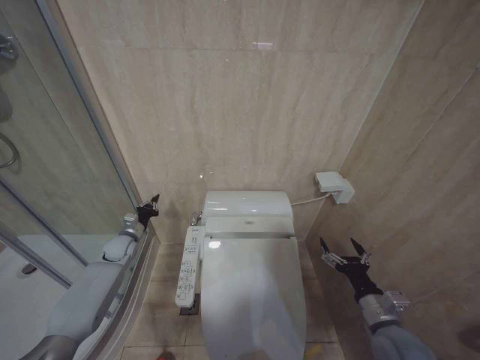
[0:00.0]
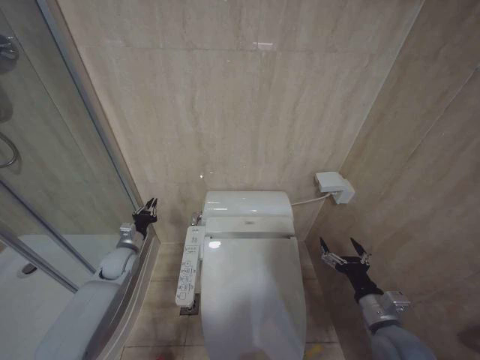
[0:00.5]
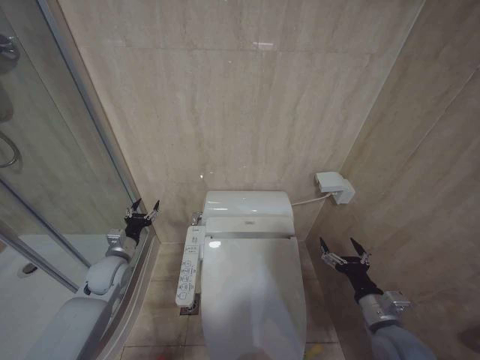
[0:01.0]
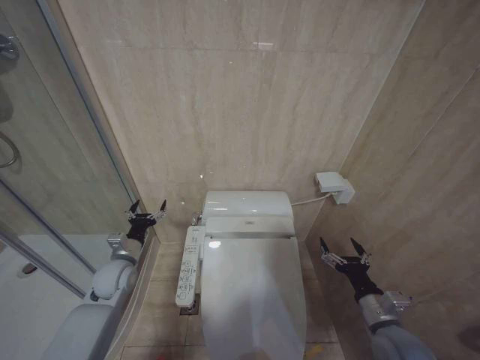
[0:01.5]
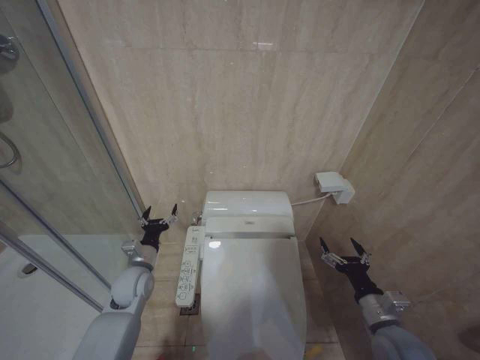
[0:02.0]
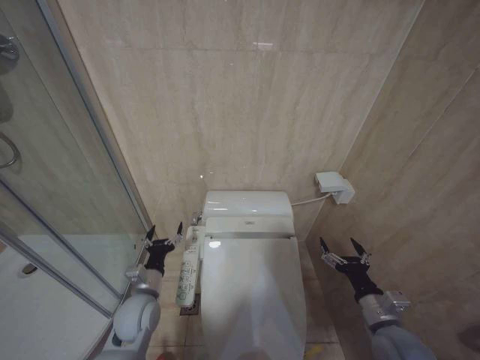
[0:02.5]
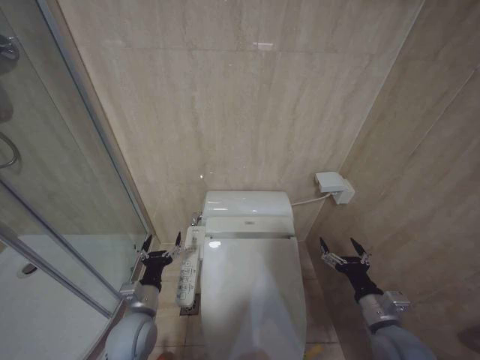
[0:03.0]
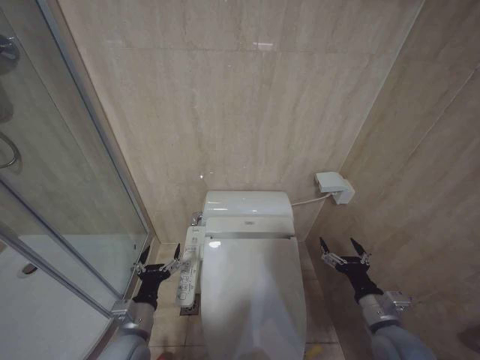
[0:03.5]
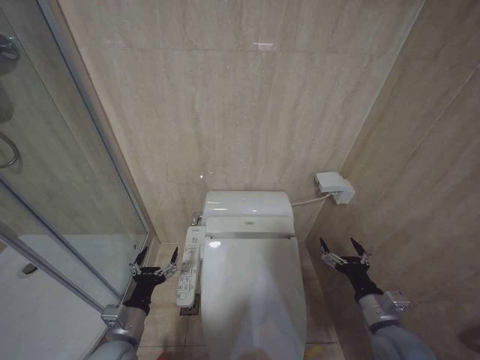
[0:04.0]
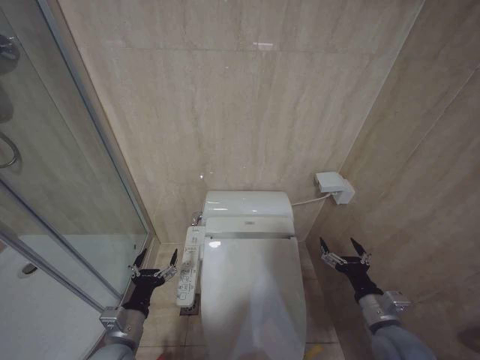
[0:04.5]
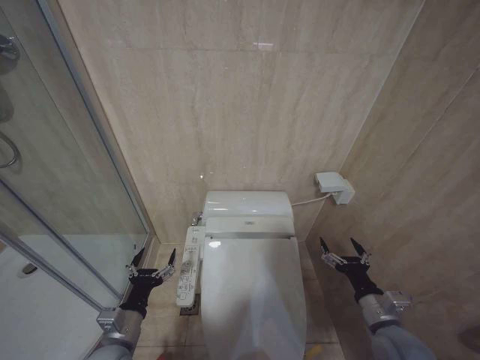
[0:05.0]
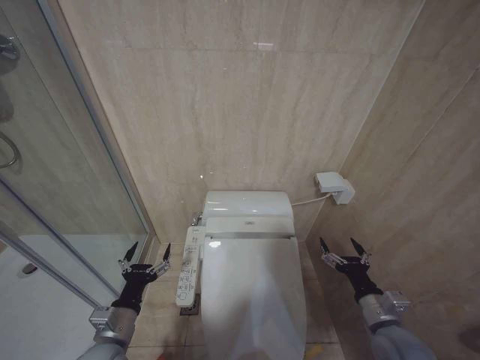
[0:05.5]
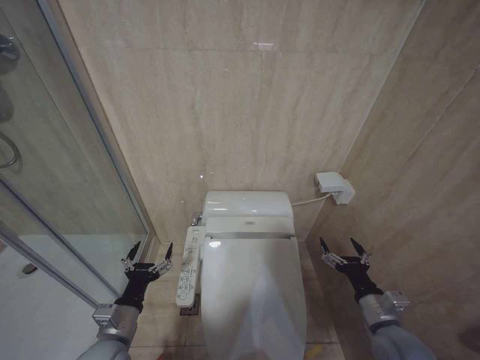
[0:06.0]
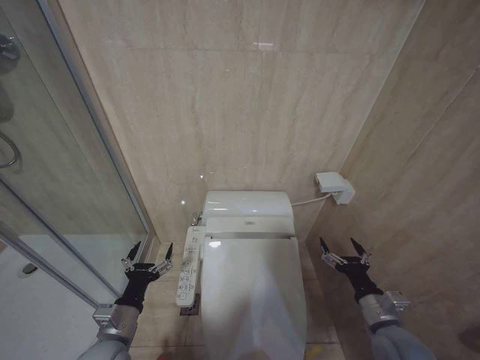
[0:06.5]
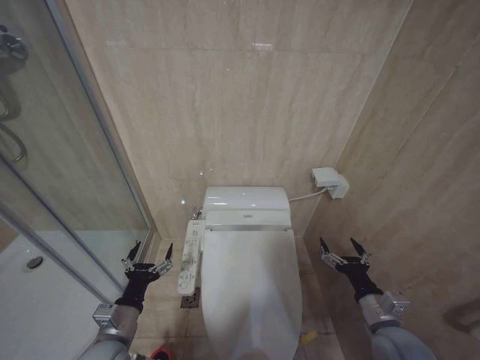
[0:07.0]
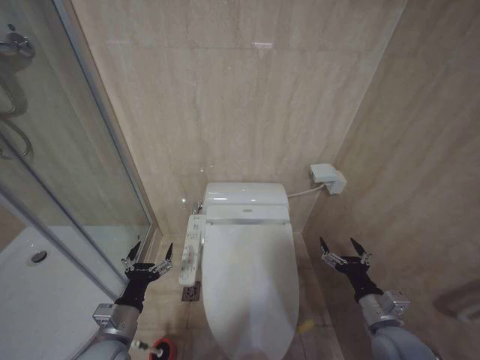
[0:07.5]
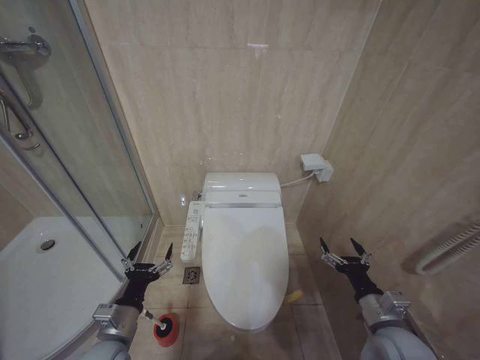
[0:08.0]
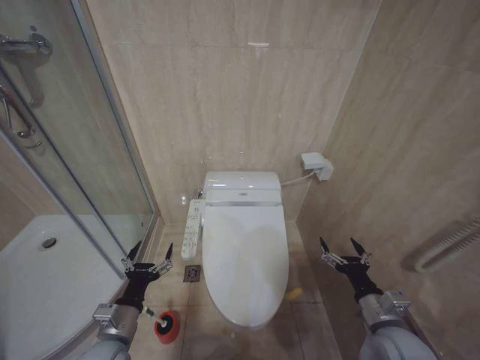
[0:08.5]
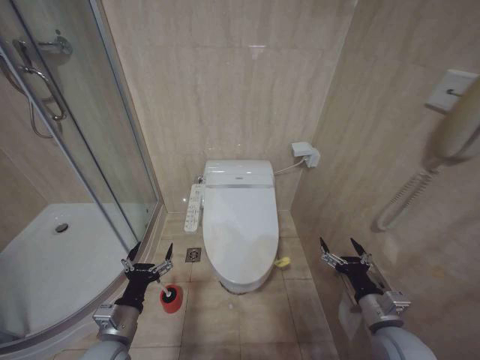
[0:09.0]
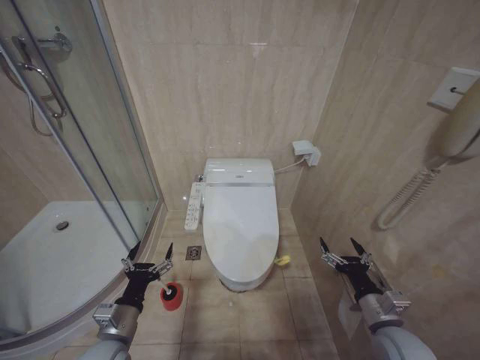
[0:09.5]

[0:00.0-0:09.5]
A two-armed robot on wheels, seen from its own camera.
Task of the whole recording: Open the toilet lid, clean the toilet bowl with a toilet brush, close the toilet lid, and flush.
0:00.0 to 0:02.0: The left gripper shifts some 15 cm backward and to the right, and opens up.
0:02.0 to 0:04.0: The left gripper shifts some 15 cm backward.
0:04.0 to 0:05.5: The grippers stay close to where they were, moving slightly.
0:05.5 to 0:09.5: The two grippers keep their place.

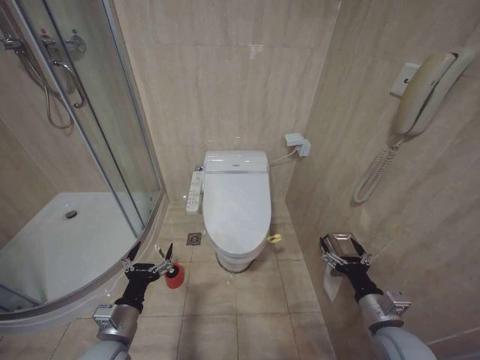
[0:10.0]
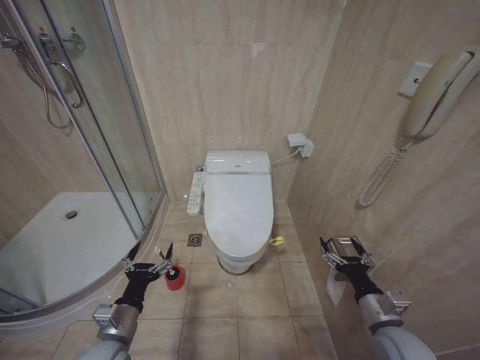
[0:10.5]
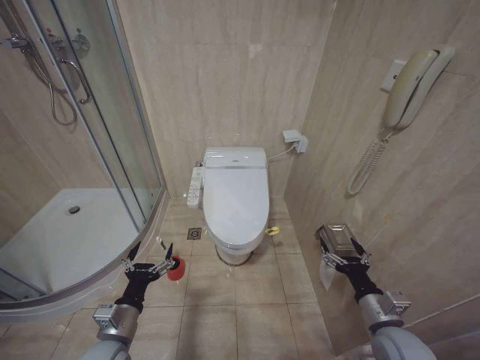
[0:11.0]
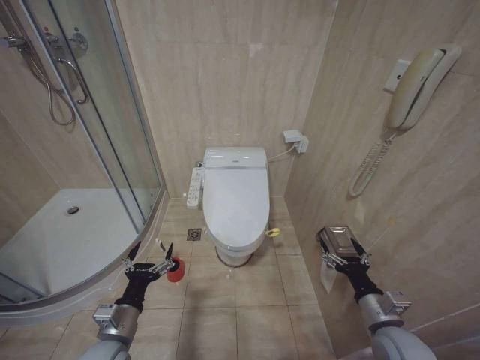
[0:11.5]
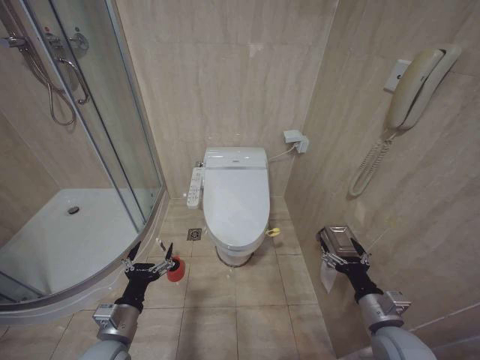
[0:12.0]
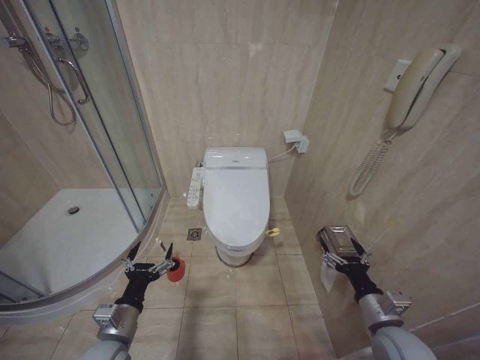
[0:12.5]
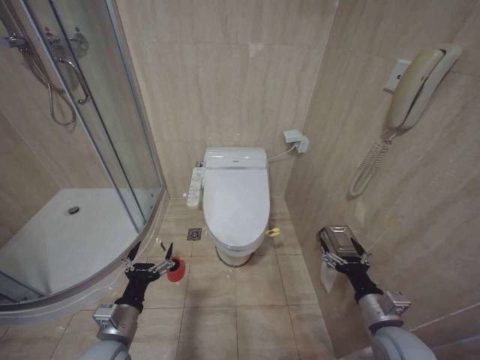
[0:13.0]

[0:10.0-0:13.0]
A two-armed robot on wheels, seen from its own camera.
Task of the whole recording: Open the toilet lid, clean the toilet bowl with a toilet brush, close the toilet lid, and flush.
0:10.0 to 0:13.0: Both grippers stay put.

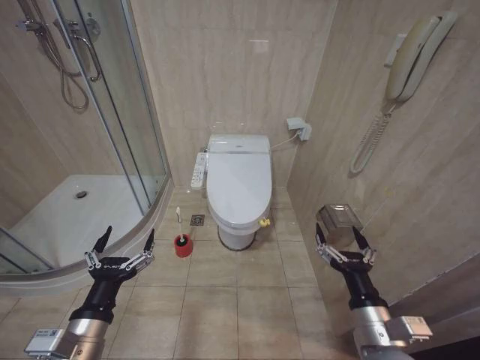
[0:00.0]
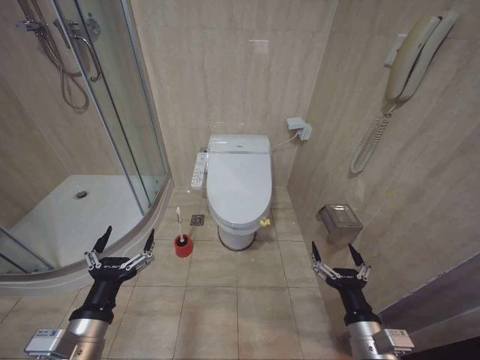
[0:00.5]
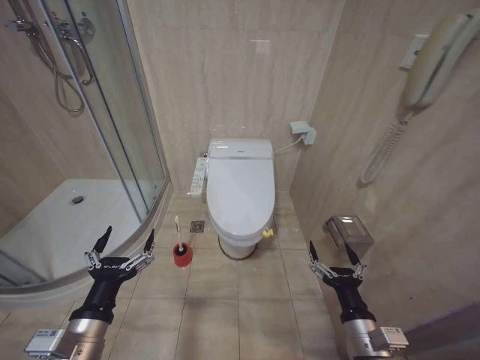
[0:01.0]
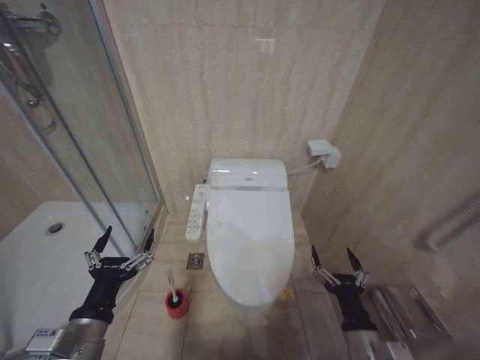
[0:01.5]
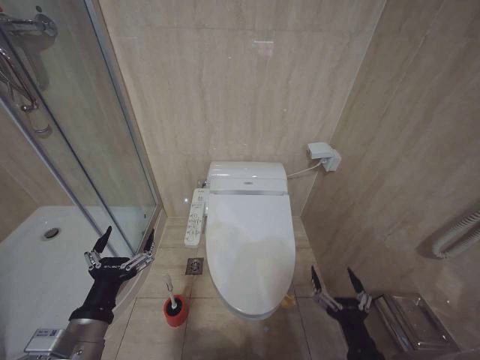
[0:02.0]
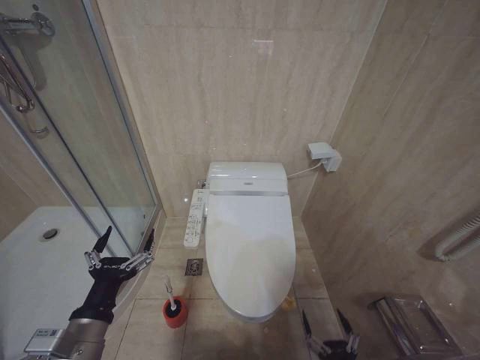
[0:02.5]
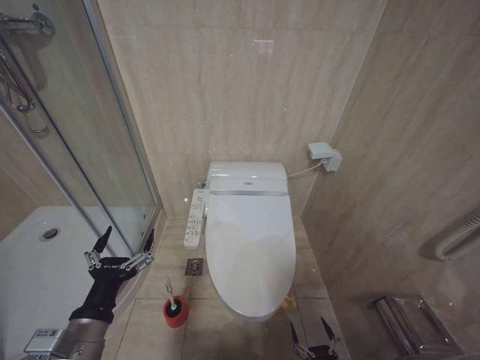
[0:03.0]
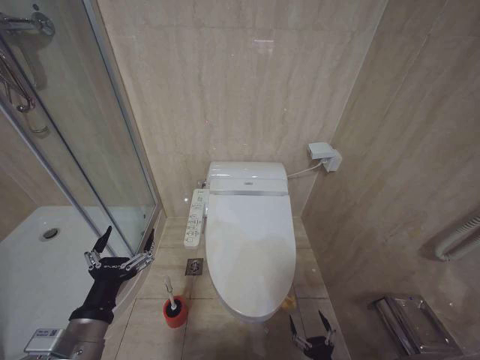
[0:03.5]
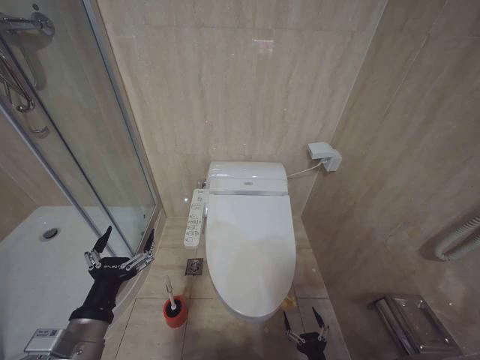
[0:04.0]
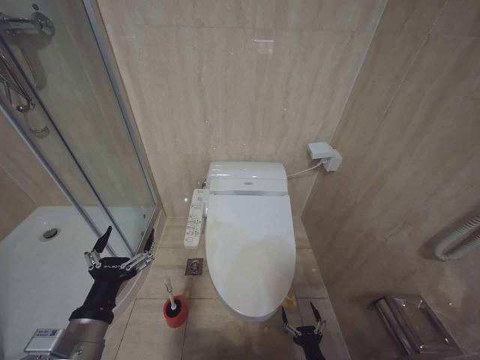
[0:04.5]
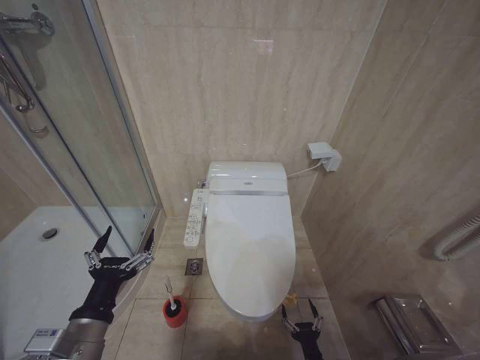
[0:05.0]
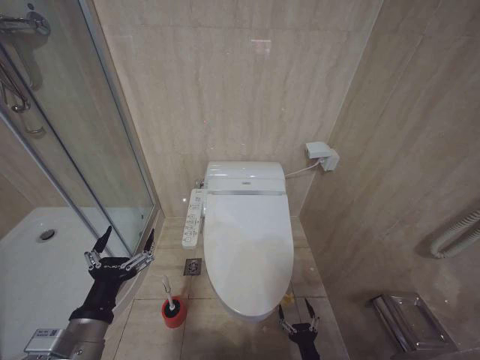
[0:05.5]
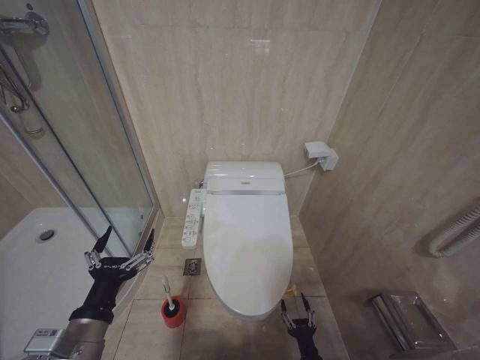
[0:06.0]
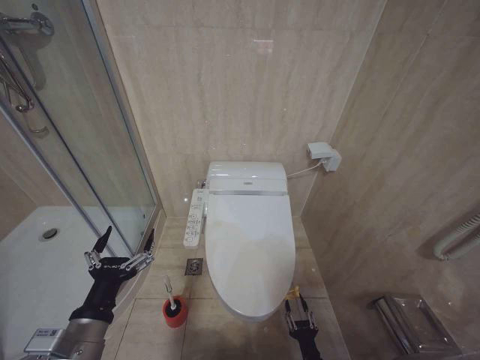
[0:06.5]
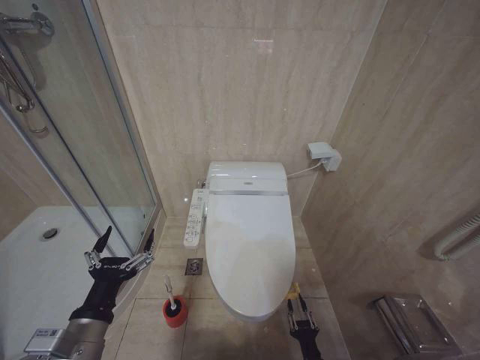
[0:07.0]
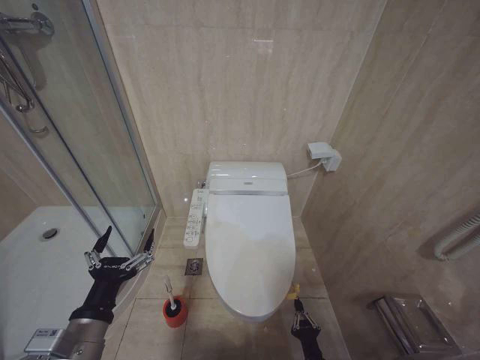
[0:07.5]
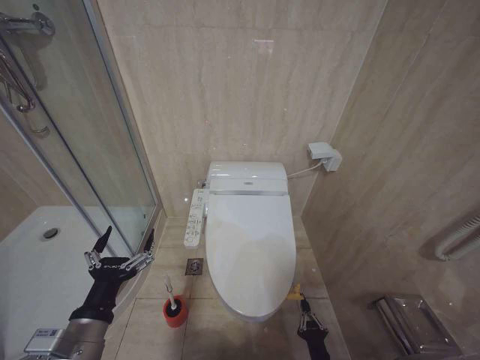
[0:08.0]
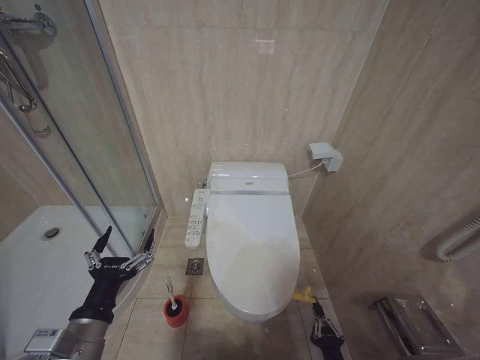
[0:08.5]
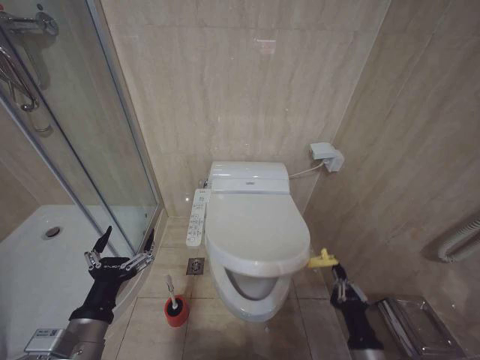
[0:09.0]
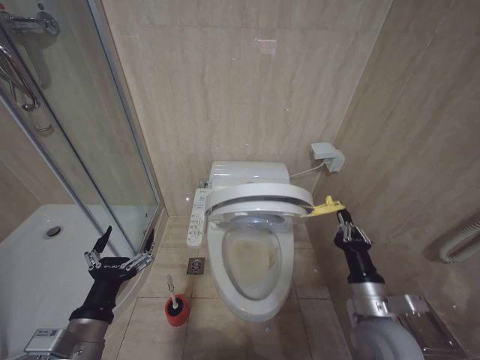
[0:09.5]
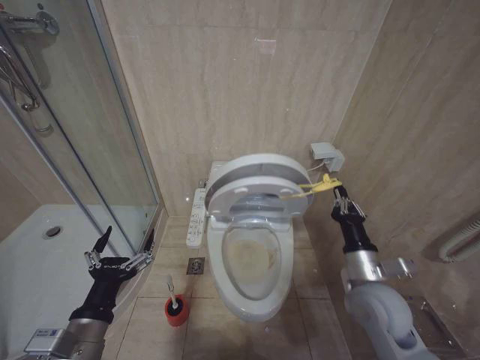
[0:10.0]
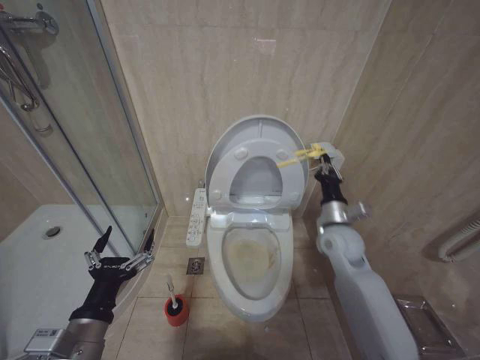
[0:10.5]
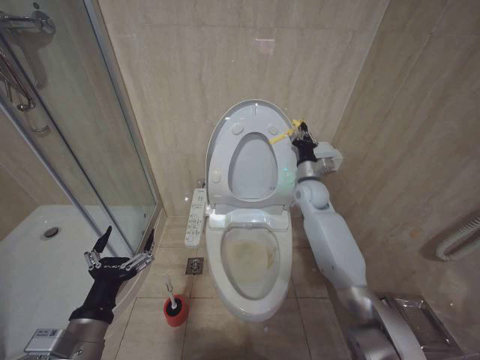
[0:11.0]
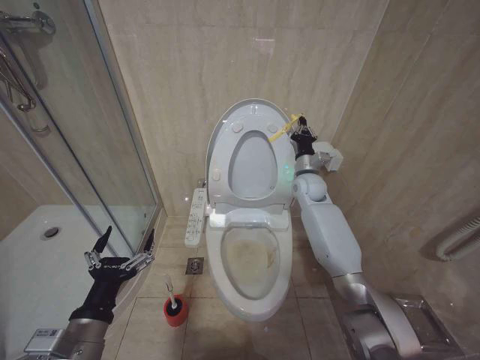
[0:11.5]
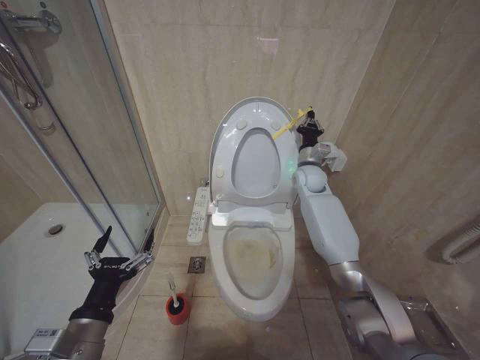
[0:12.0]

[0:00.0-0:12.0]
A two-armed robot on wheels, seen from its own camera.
Task of the whole recording: Open the toilet lid, clean the toilet bowl with a toilet brush, close the toilet lid, and flush.
0:02.0 to 0:04.0: The right gripper heads downward, covering approximately 20 cm.
0:04.0 to 0:06.0: The right gripper ends up about 5 cm from where it was.
0:06.0 to 0:08.0: The right gripper closes up.
0:08.0 to 0:10.0: The right gripper heads upward and forward, covering approximately 35 cm.
0:10.0 to 0:12.0: The right gripper shifts approximately 30 cm forward.

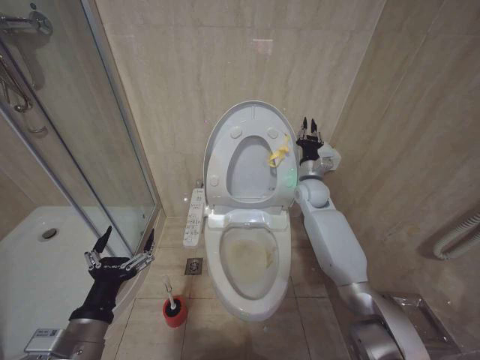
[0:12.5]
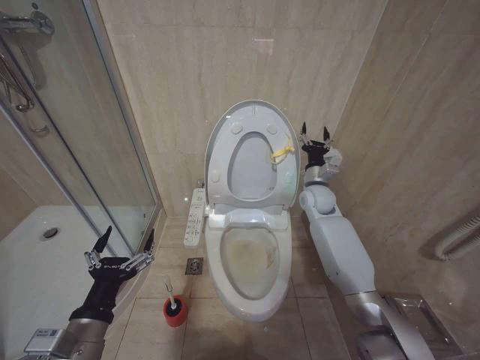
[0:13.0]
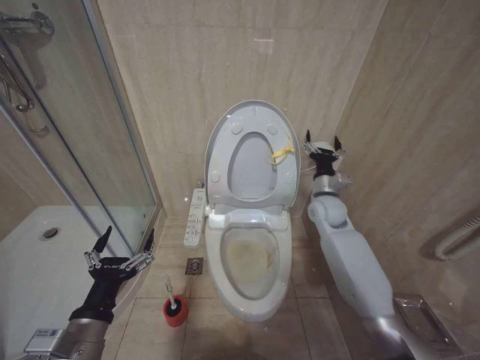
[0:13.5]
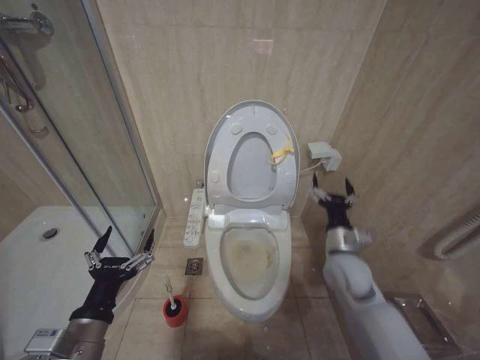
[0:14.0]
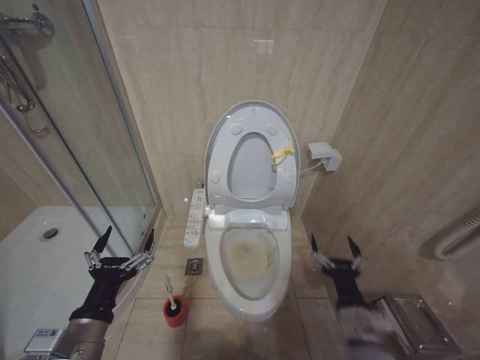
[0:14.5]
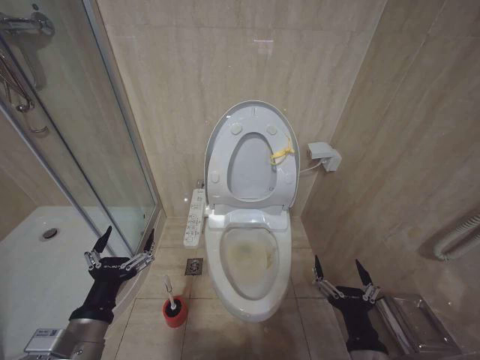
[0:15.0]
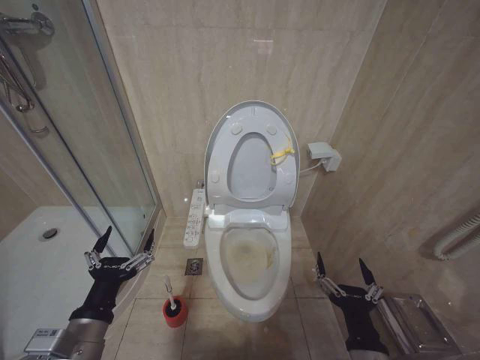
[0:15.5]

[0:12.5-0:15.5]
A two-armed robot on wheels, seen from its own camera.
Task of the whole recording: Open the toilet lid, clean the toilet bowl with a toilet brush, close the toilet lid, and flush.
0:12.5 to 0:14.0: The right gripper is displaced backward and downward by some 20 cm, and opens its fingers.
0:14.0 to 0:15.5: The right gripper is displaced backward by about 25 cm.
